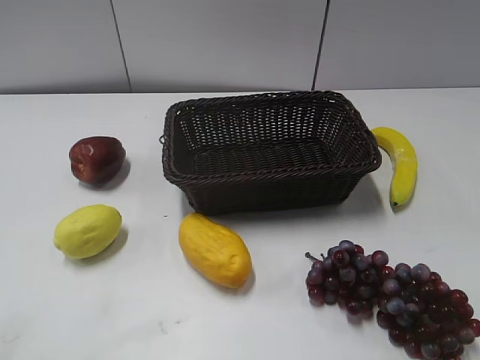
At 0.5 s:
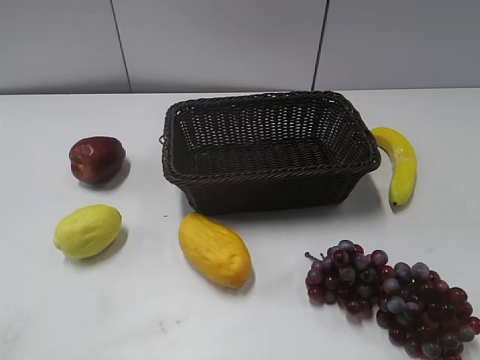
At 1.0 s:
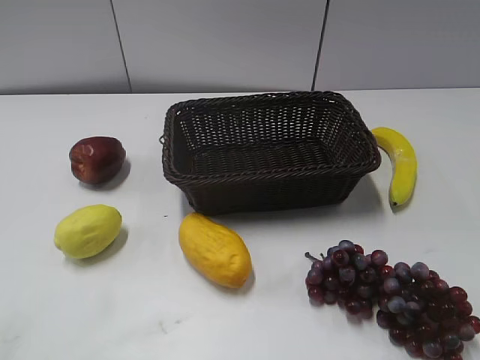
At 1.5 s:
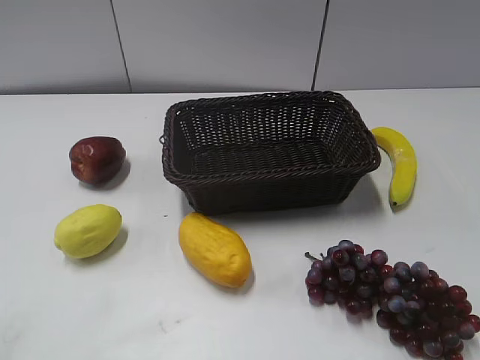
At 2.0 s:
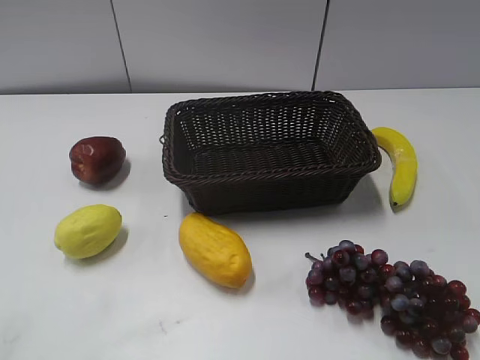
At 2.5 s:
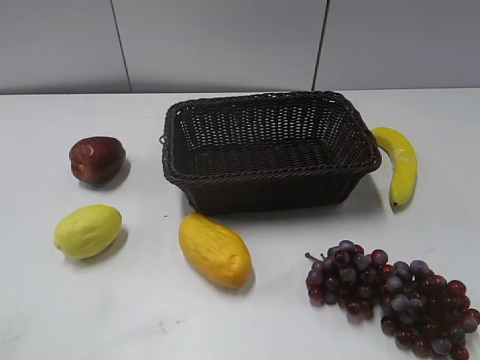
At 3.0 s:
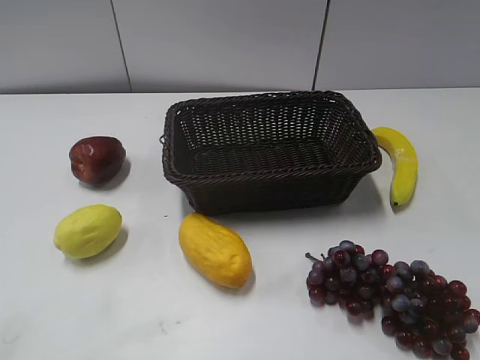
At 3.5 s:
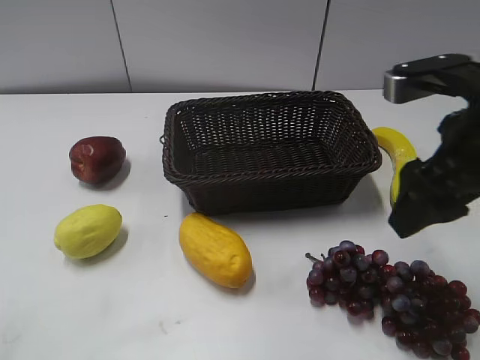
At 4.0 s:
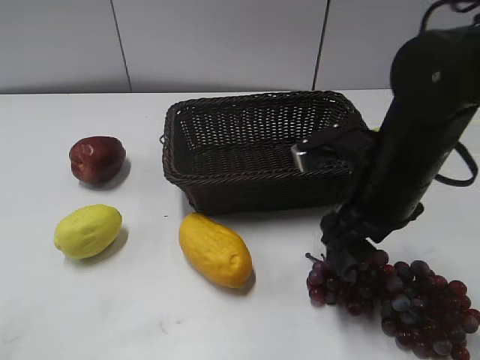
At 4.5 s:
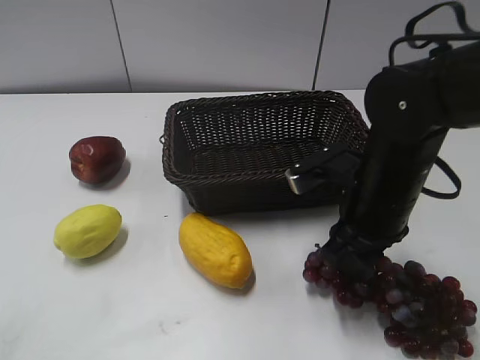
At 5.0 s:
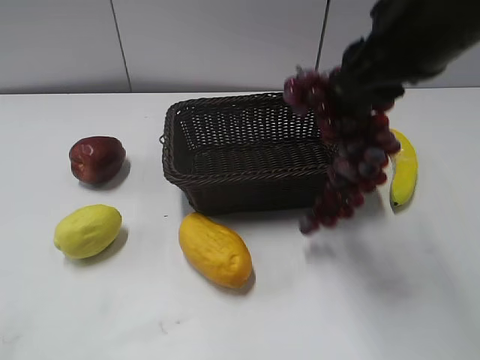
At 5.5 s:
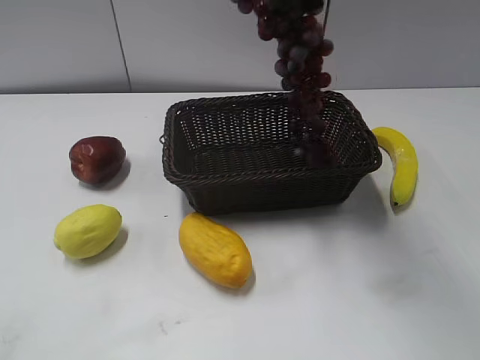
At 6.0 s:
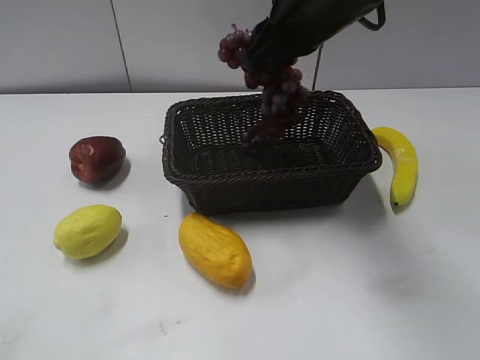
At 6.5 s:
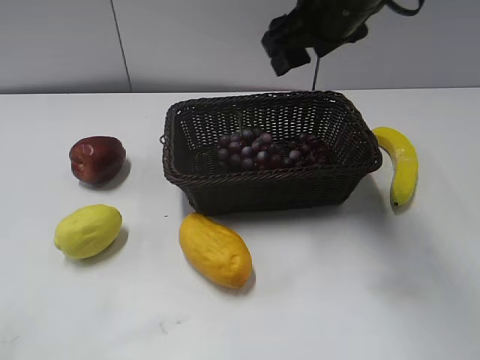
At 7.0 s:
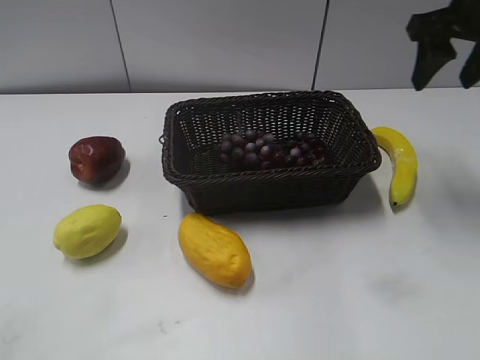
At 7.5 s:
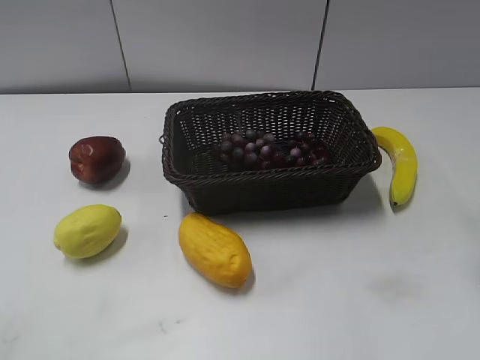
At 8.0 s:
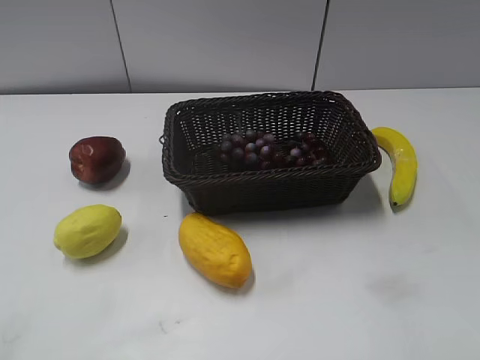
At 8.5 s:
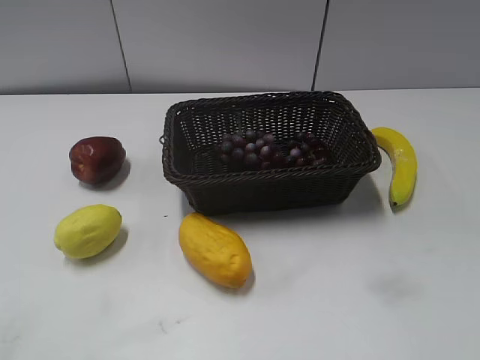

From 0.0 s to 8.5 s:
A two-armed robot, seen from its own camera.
From 0.0 s to 2.0 s: The right gripper is displaced backward by approximately 20 cm.
From 2.0 s to 4.0 s: The right gripper heads forward, to the left and downward, covering roughly 35 cm.
From 4.0 s to 6.5 s: The right gripper travels upward and forward by roughly 15 cm, and closes and opens again.
From 6.5 s to 8.5 s: The right gripper shifts roughly 40 cm backward and to the right.
